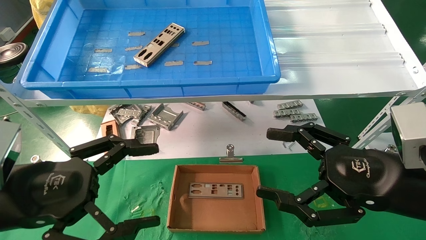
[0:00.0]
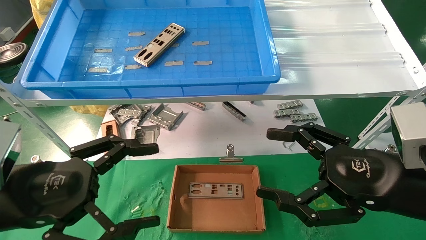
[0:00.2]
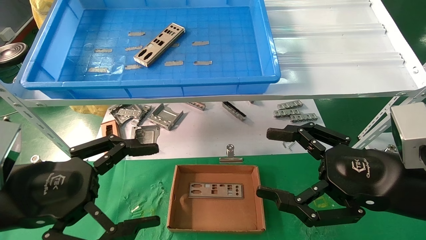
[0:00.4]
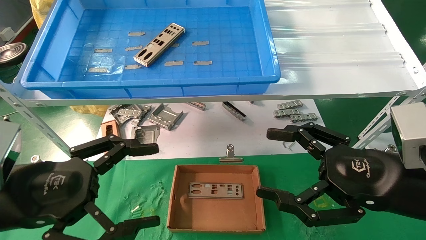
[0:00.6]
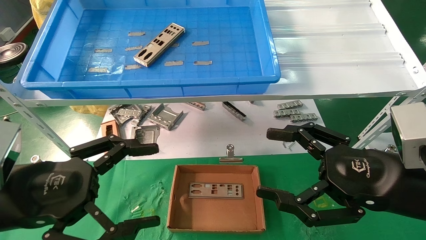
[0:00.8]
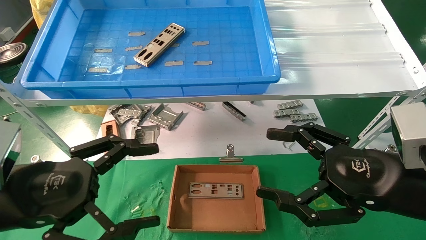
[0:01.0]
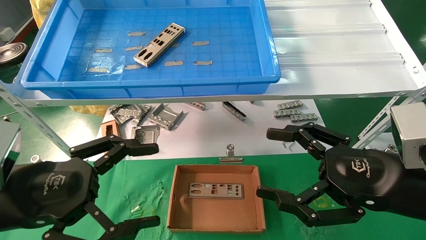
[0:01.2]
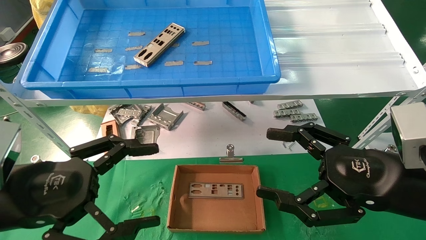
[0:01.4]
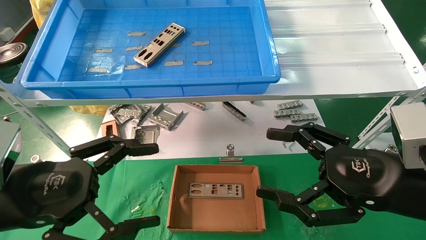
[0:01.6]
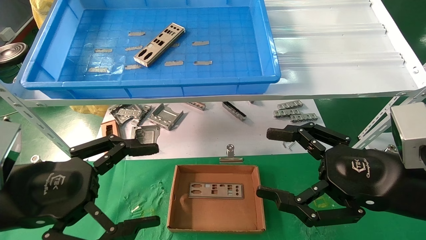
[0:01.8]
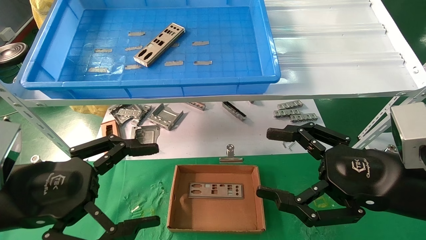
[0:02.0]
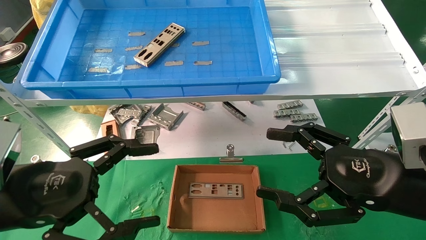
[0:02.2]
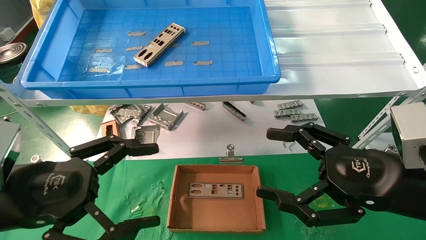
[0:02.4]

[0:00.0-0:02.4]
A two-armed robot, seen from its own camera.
Task of the whole recording: pick up the parts on the tray and put them in the cardboard box.
0:00.0 to 0:02.4: Both grippers stay about where they are.
